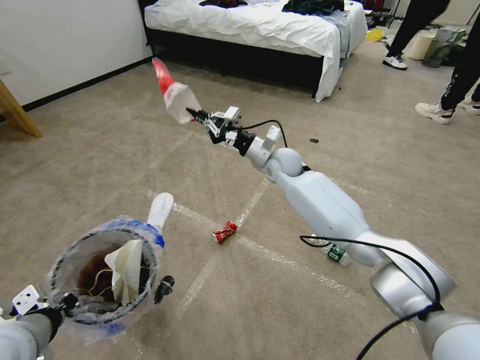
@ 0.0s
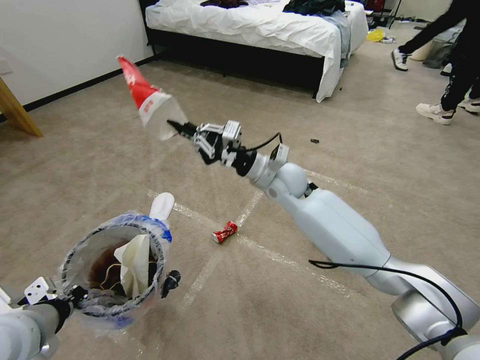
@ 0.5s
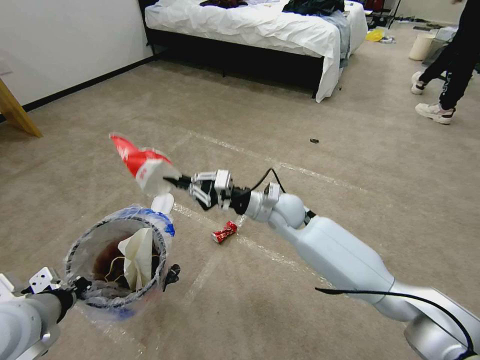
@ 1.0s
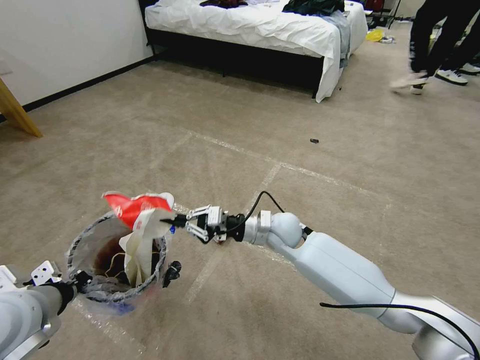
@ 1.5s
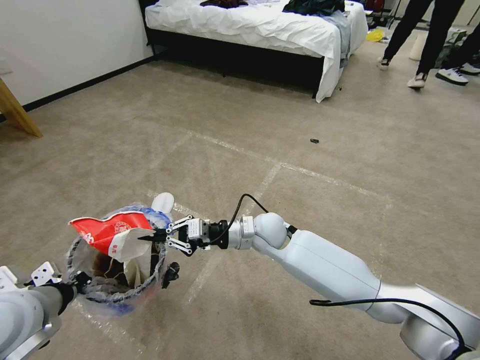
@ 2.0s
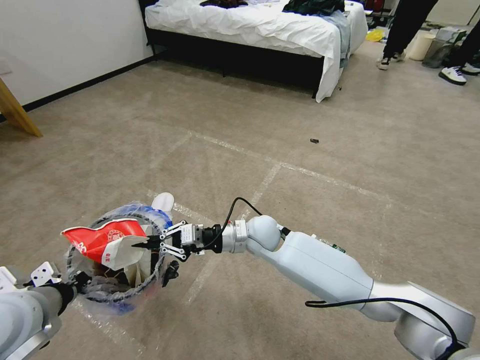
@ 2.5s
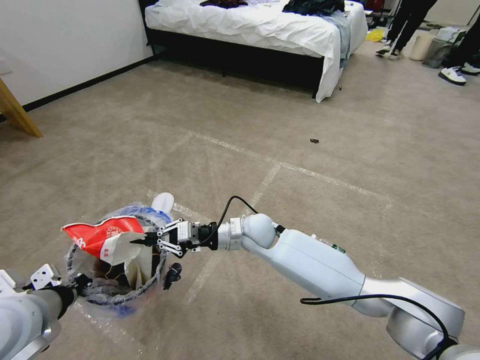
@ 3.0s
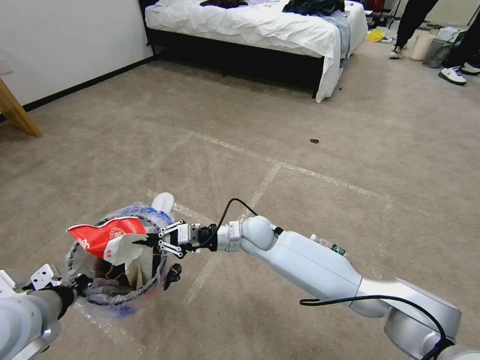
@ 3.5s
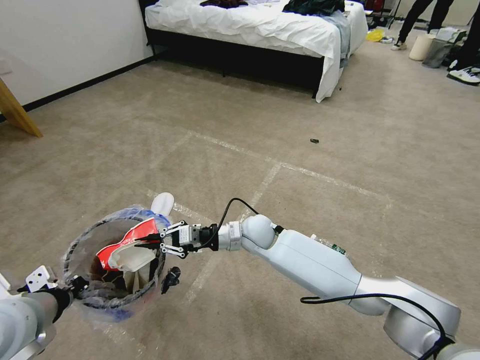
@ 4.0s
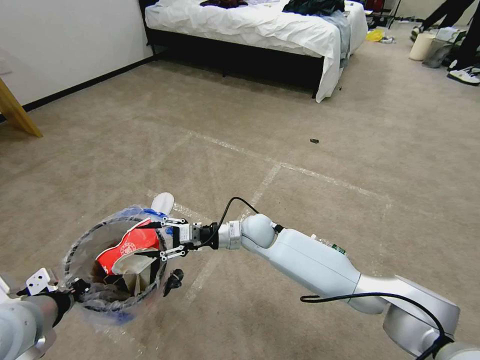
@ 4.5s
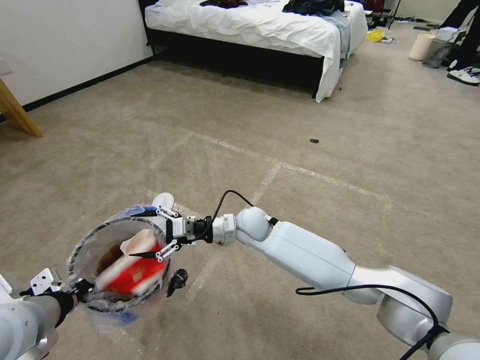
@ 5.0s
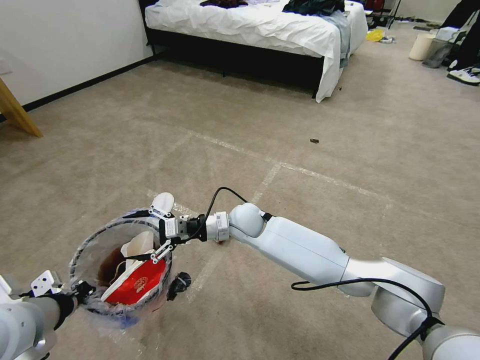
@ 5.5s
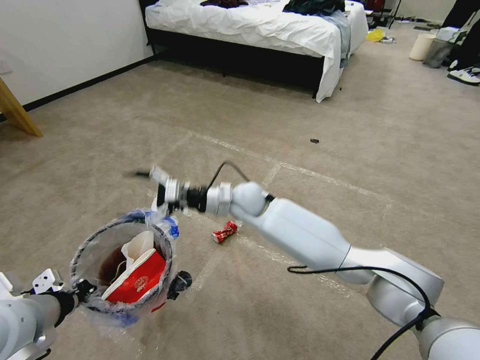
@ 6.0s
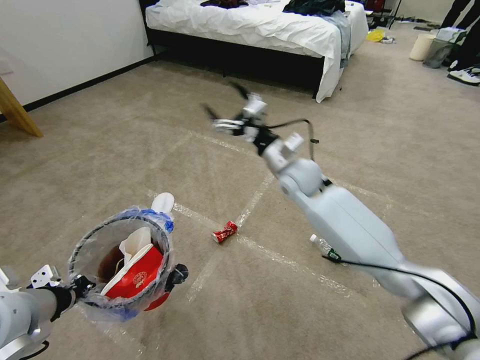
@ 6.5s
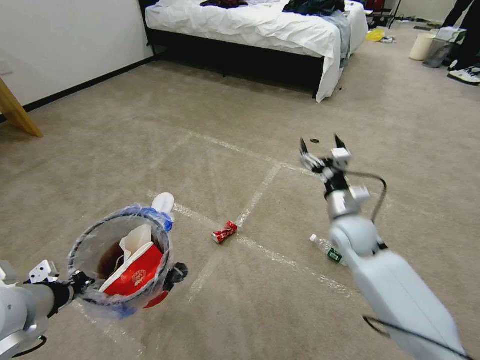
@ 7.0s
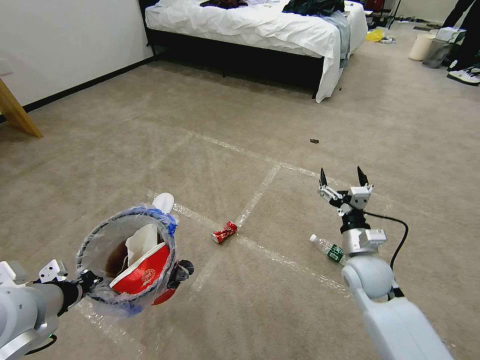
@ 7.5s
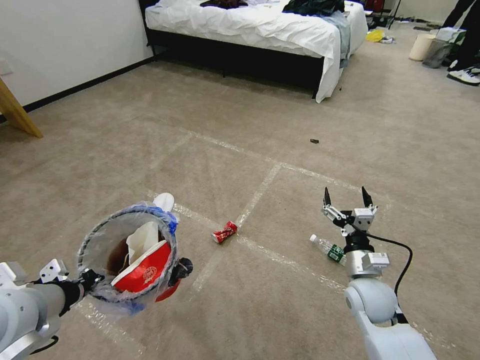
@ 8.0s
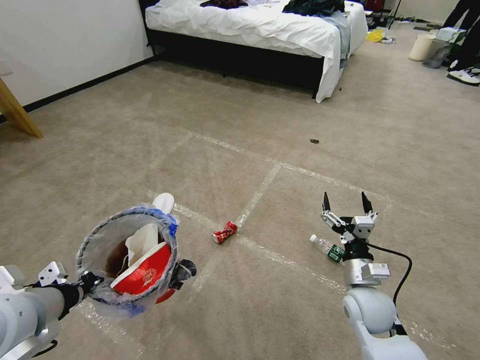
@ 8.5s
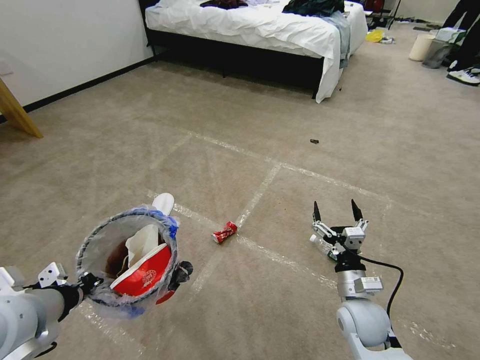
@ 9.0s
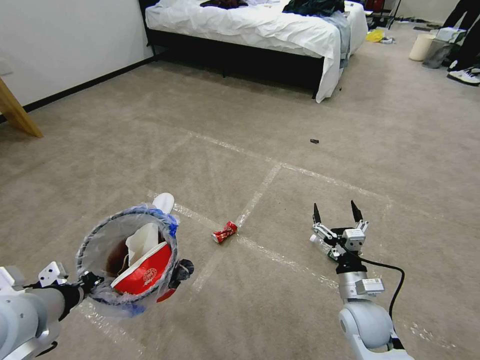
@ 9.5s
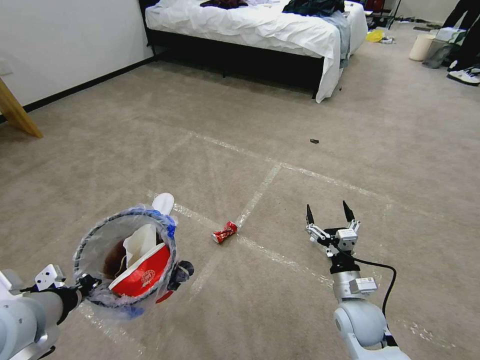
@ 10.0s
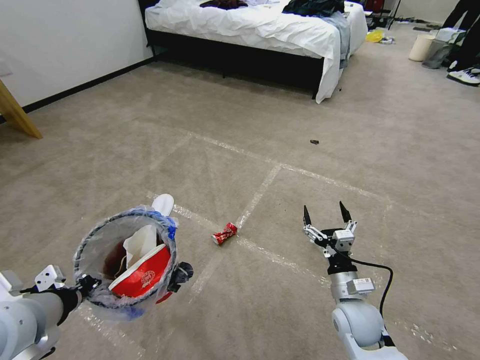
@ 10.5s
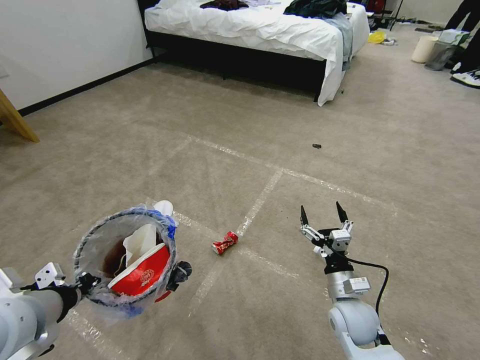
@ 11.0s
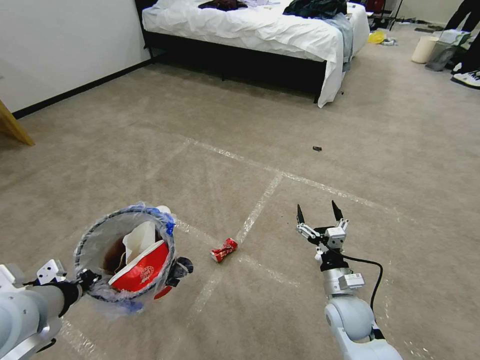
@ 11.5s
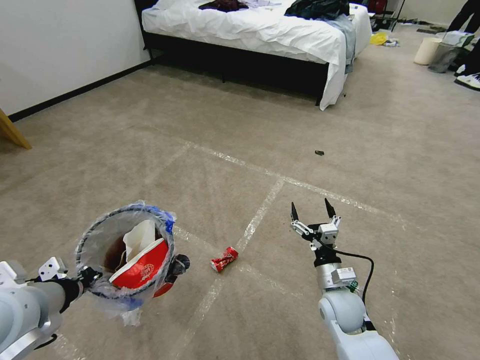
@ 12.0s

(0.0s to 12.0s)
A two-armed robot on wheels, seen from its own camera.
Task of the whole recording: Pick up the trash bin and place the garbage on the floor into it.
0.0s - 2.0s: The right gripper is displaced backward and downward by approximately 20 cm.
2.0s - 4.0s: There are only small adjustments of the grippers.
4.0s - 6.0s: The right gripper is displaced upward by about 10 cm, and opens its fingers.
6.0s - 8.0s: The right gripper travels to the right, backward and downward by approximately 35 cm.
8.0s - 10.0s: The right gripper shifts by approximately 5 cm.
10.0s - 12.0s: The grippers make only small movements.

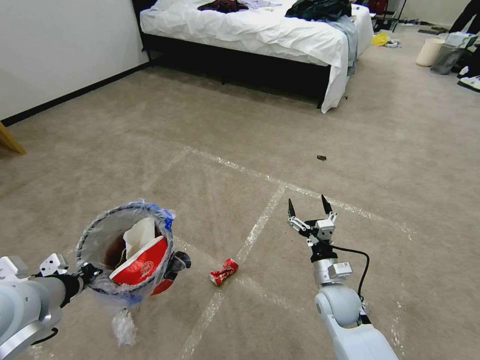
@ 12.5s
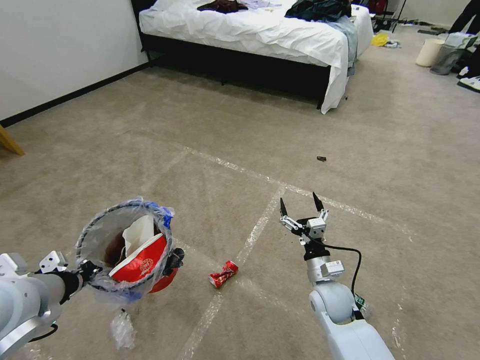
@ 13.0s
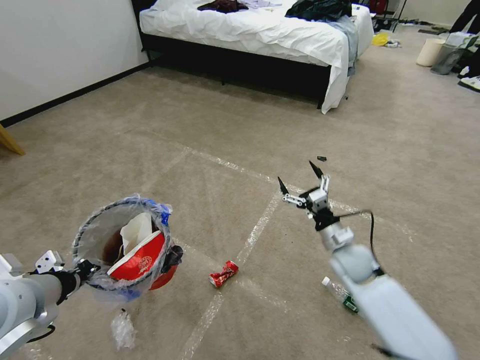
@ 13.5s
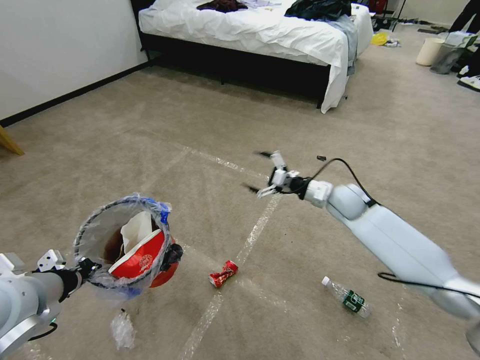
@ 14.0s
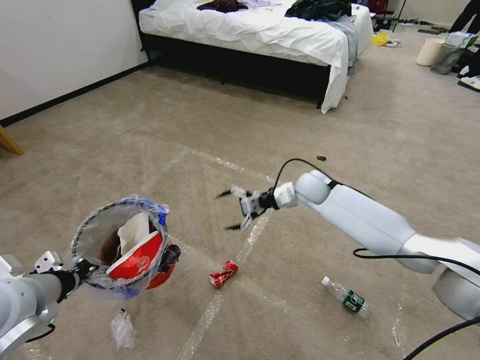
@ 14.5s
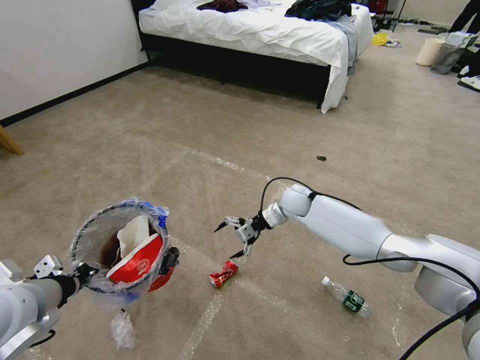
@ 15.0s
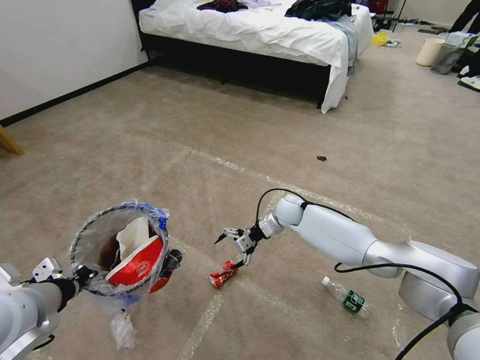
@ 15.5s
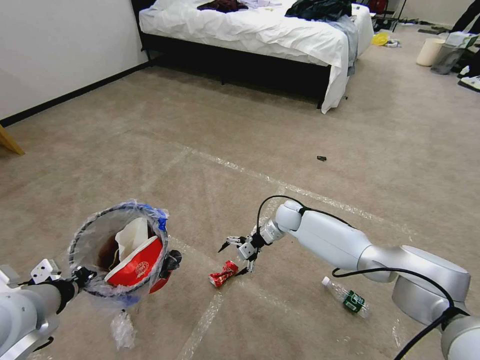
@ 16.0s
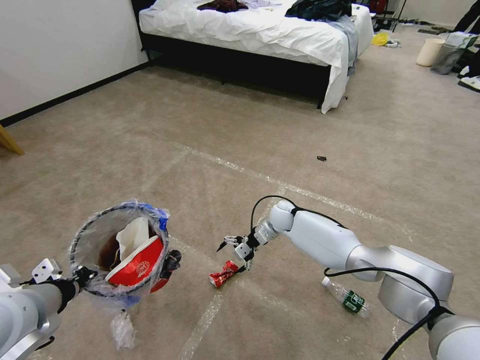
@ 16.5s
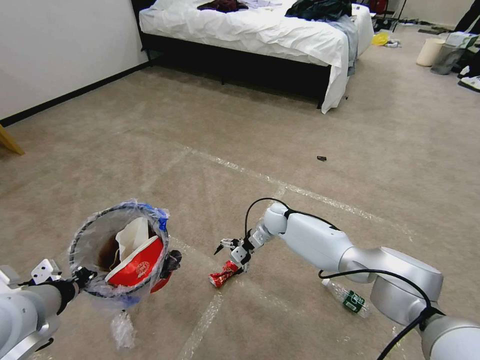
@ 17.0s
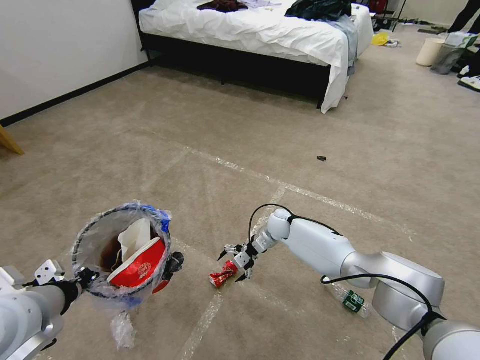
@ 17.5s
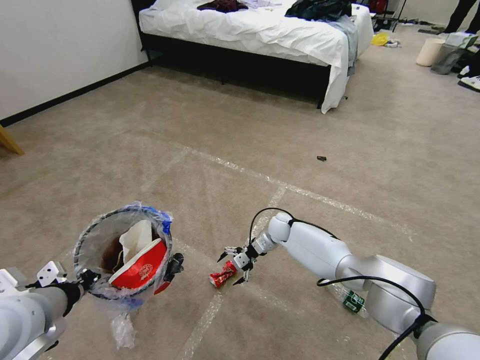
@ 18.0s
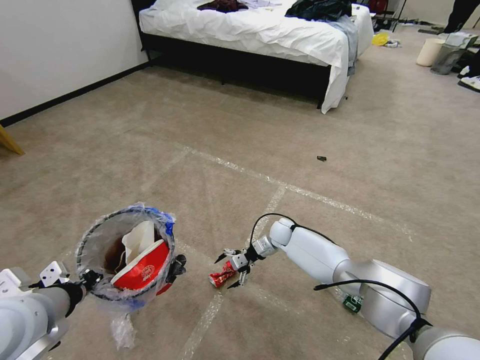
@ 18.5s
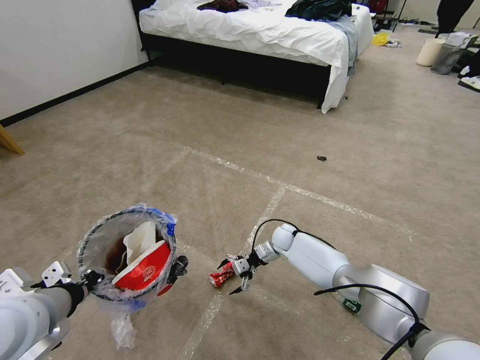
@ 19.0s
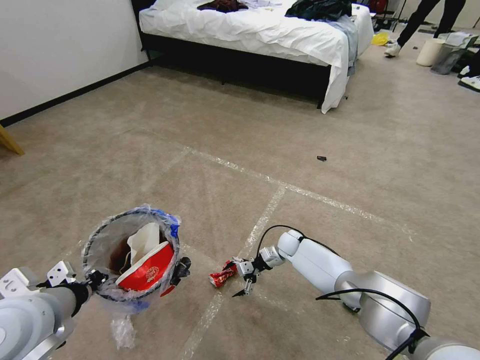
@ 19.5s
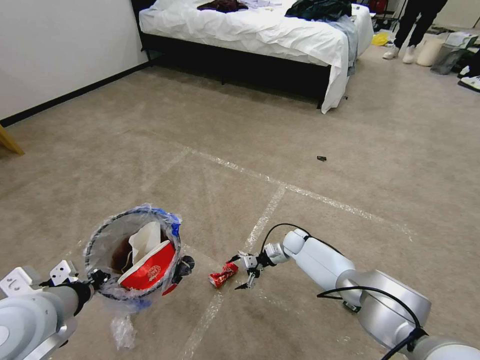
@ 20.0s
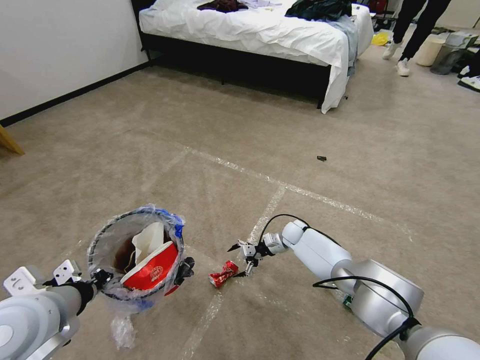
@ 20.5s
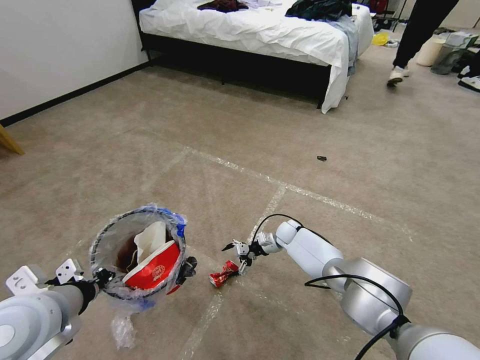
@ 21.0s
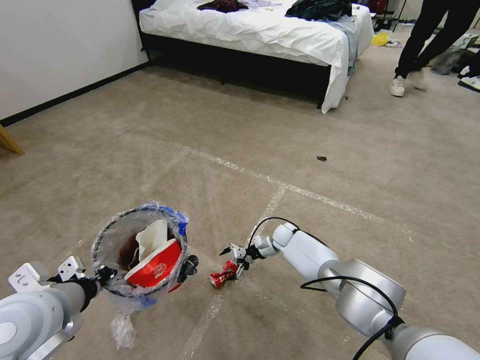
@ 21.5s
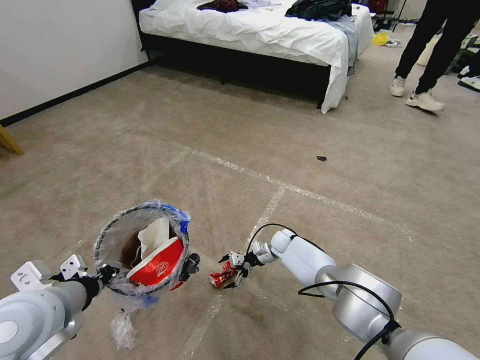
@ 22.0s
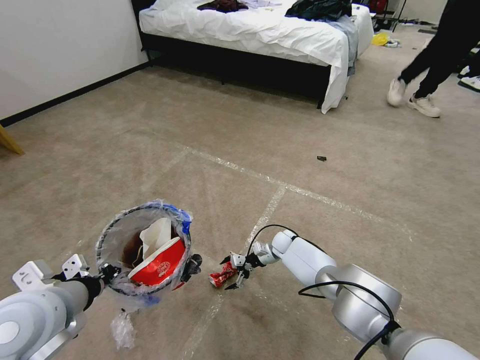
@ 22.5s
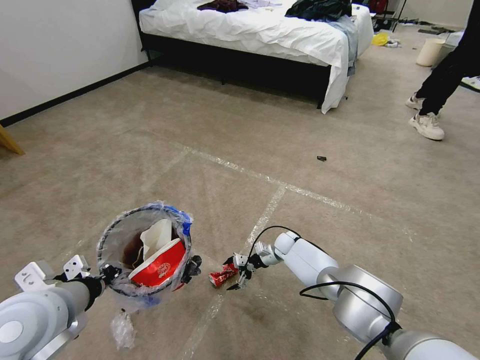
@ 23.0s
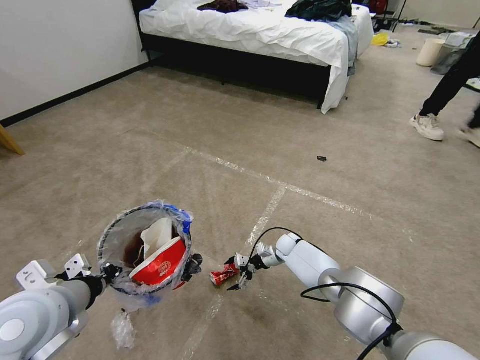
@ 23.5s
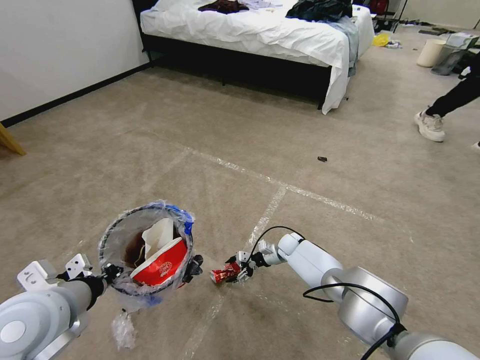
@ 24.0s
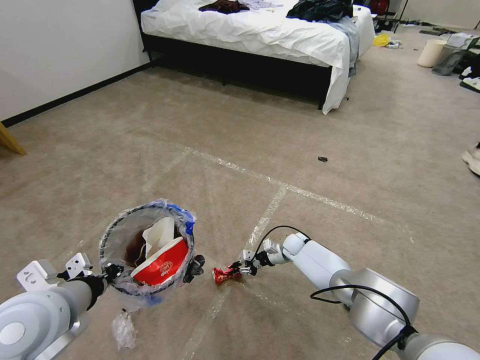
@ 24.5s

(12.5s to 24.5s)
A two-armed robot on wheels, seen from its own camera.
Task of the whole recording: Pick up the trash bin and place the garbage on the floor into it.
12.5s - 14.5s: The right gripper heads forward and upward, covering some 30 cm.
14.5s - 16.5s: The right gripper is displaced downward and to the left by roughly 15 cm.
16.5s - 18.5s: The right gripper moves downward, roughly 5 cm.
18.5s - 20.5s: The right gripper changes place by about 5 cm.
20.5s - 22.5s: There are only small adjustments of the grippers.
22.5s - 24.5s: The right gripper closes up.

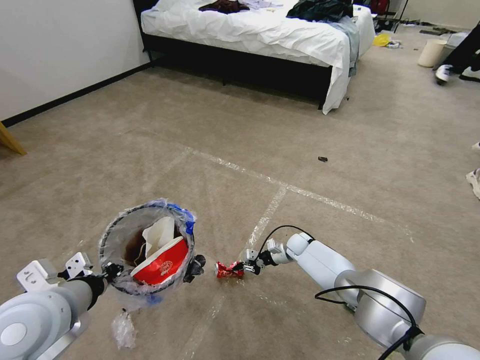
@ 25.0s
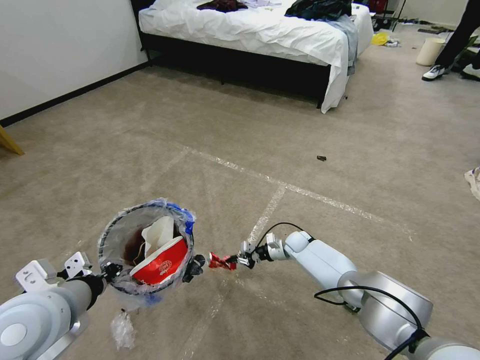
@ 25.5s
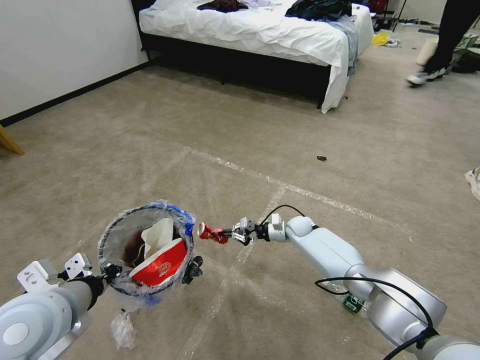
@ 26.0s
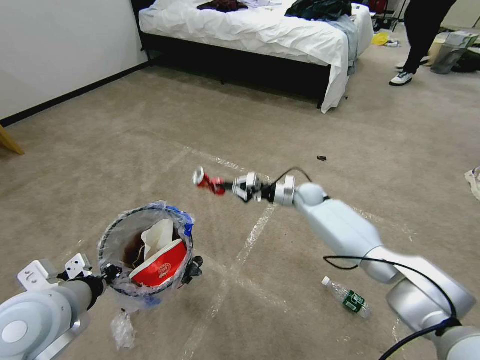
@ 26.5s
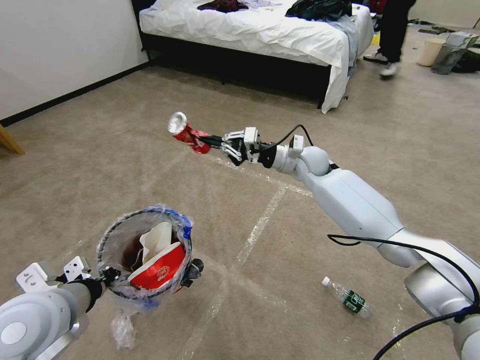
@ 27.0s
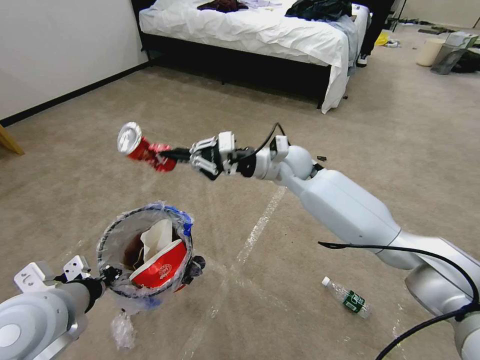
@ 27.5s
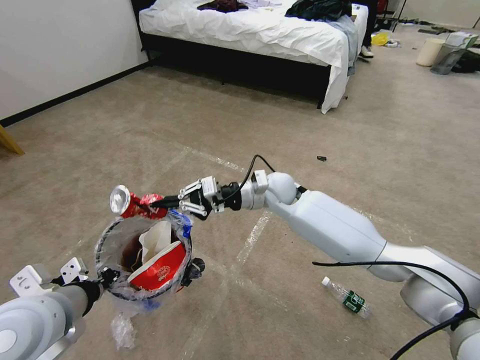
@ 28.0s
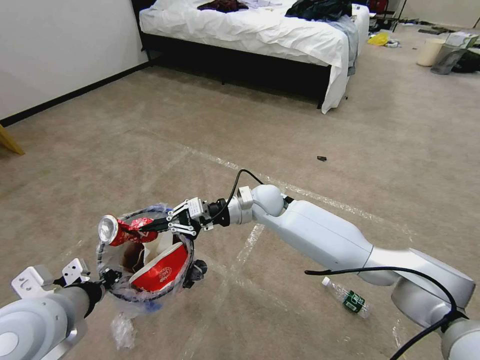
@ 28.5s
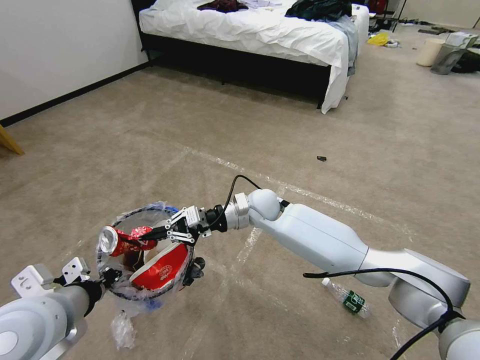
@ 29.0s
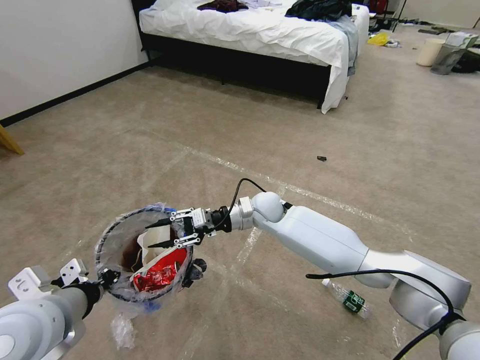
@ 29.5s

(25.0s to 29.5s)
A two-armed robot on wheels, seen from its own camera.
Task of the whole recording: Pick up the trash bin and place the garbage on the floor into it.
25.0s - 27.0s: The right gripper heads upward, covering approximately 30 cm.
27.0s - 29.5s: The right gripper travels to the left, downward and backward by about 15 cm, and opens up.
